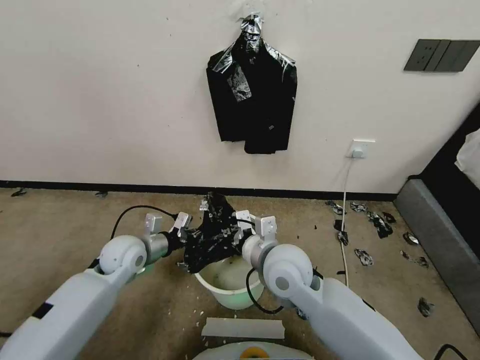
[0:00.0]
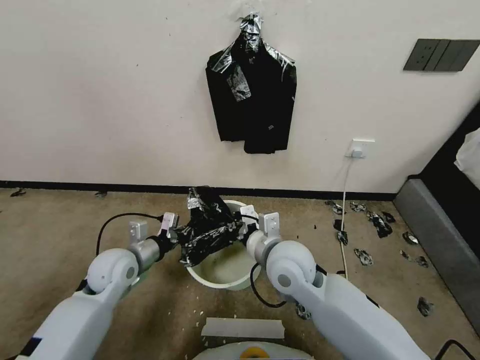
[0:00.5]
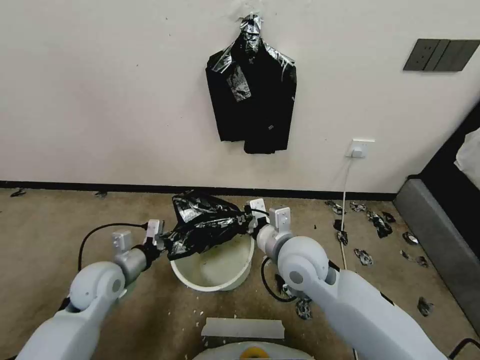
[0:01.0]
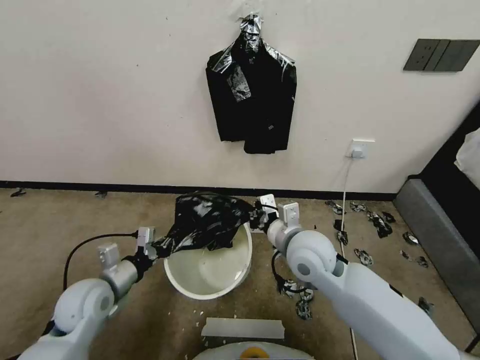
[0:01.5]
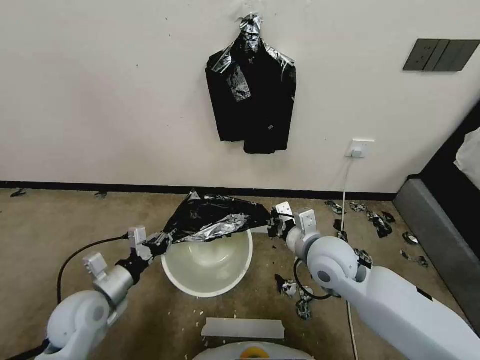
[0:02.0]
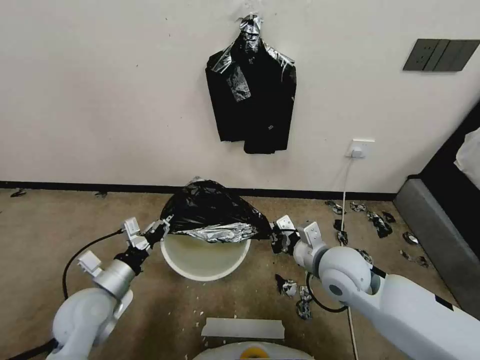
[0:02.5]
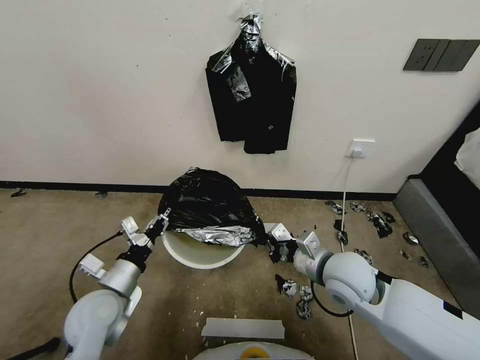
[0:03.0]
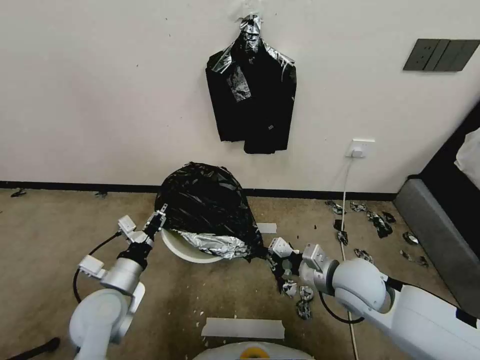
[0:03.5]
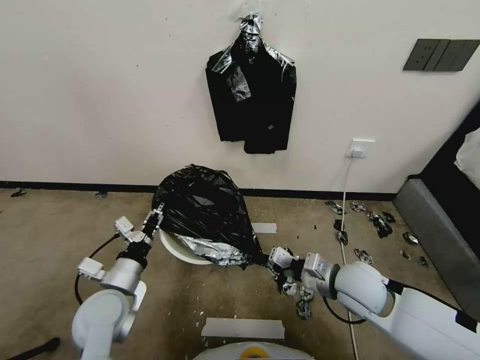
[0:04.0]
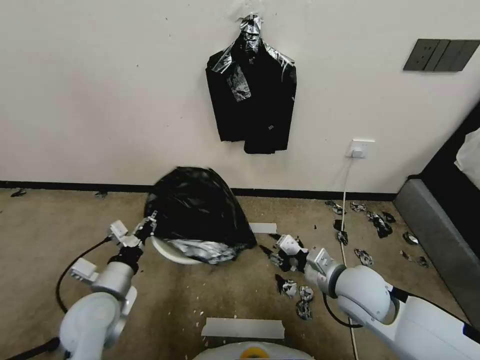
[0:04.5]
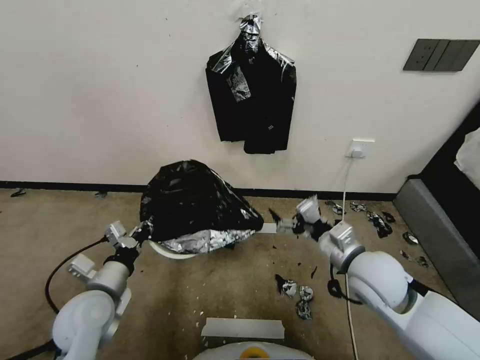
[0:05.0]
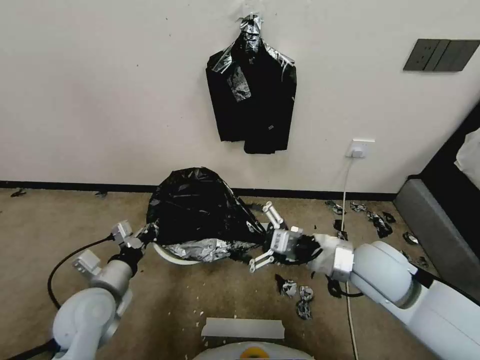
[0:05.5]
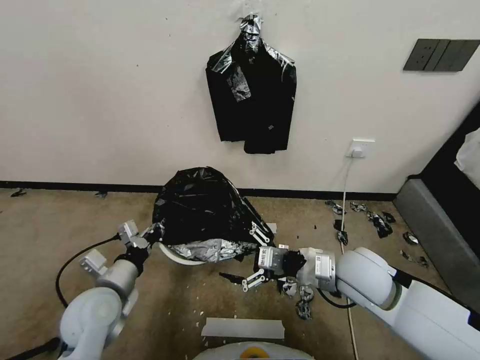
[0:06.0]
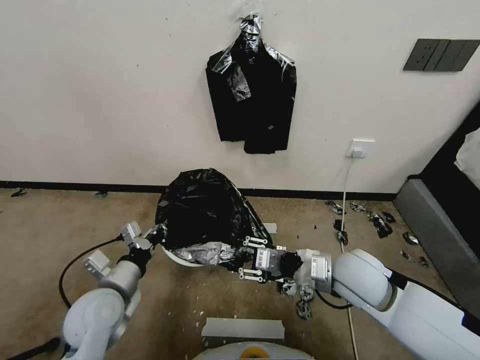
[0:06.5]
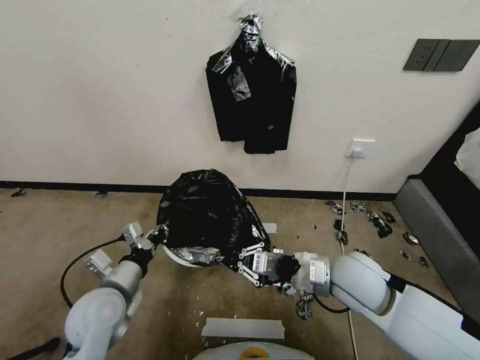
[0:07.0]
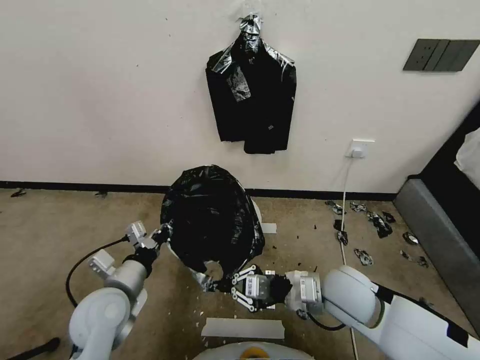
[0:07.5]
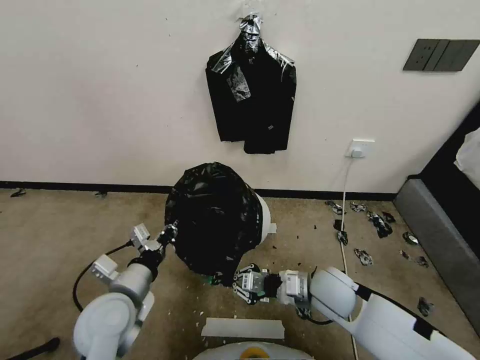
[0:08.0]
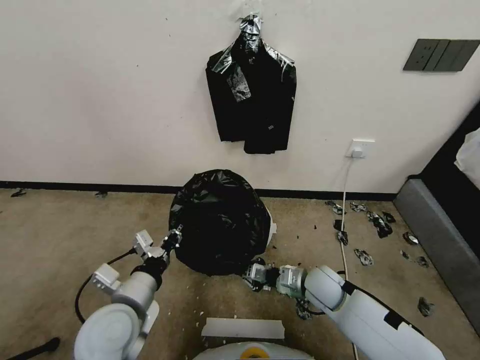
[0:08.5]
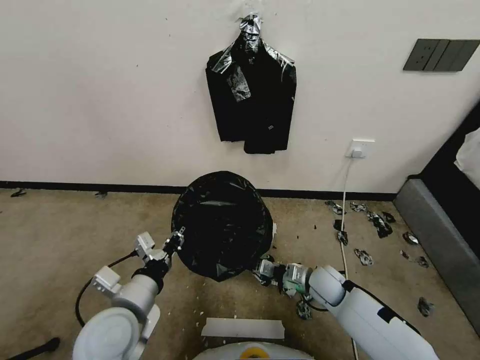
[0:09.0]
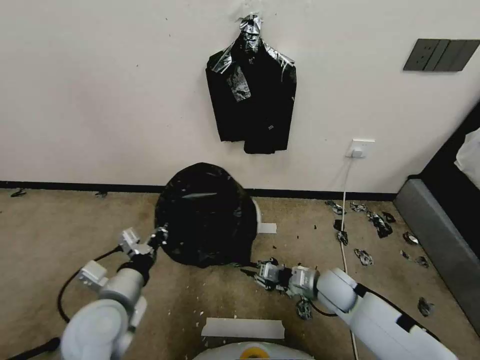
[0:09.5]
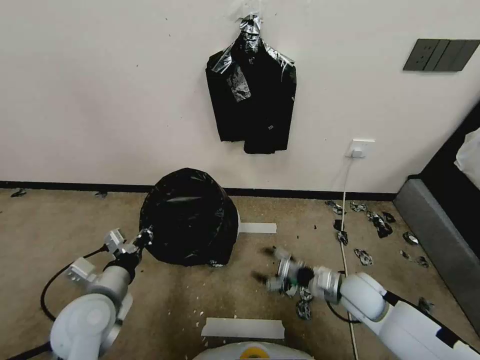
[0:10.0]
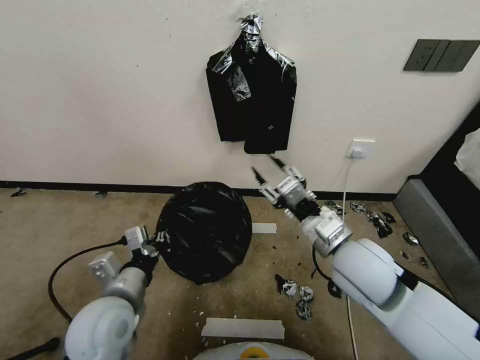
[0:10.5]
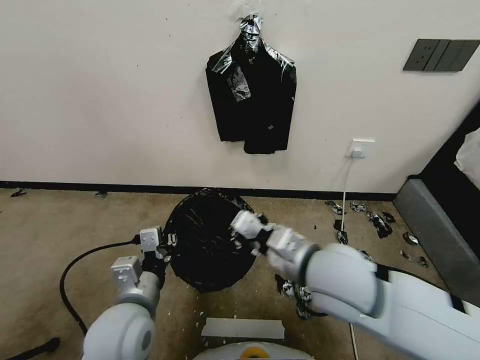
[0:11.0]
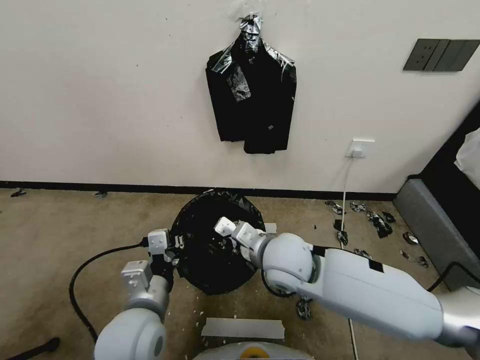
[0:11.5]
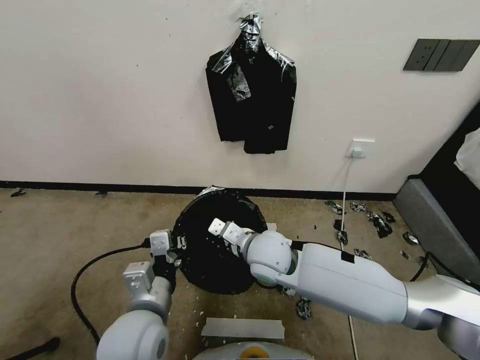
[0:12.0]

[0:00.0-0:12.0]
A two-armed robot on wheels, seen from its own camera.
Task of the whole recording: Place a trash bag onto the trash bin.
0:00.0 to 0:02.0: The right gripper heads to the right, covering some 10 cm. The left gripper heads backward, covering approximately 15 cm.
0:02.0 to 0:04.0: Both grippers move to the right, about 5 cm.
0:04.0 to 0:06.0: The right gripper shifts some 5 cm upward, and opens.
0:06.0 to 0:08.0: The right gripper heads downward, covering roughly 10 cm, and closes its fingers.
0:08.0 to 0:10.0: The right gripper moves to the right, about 10 cm, and opens.
0:10.0 to 0:12.0: The left gripper goes about 10 cm to the right; the right gripper shifts some 25 cm to the left and upward, and closes up.

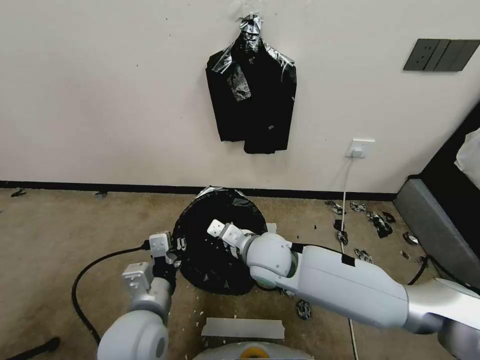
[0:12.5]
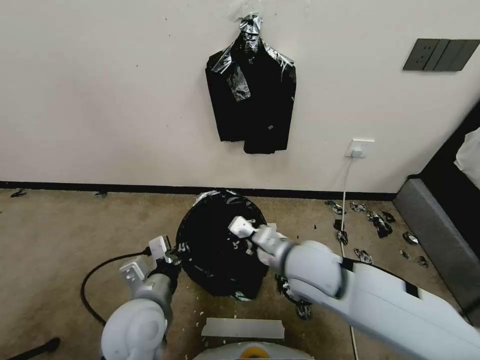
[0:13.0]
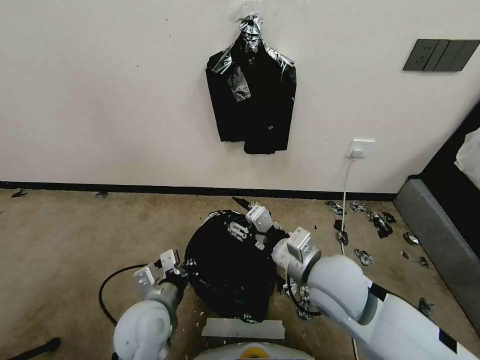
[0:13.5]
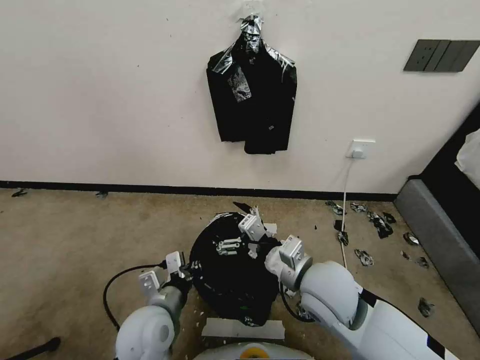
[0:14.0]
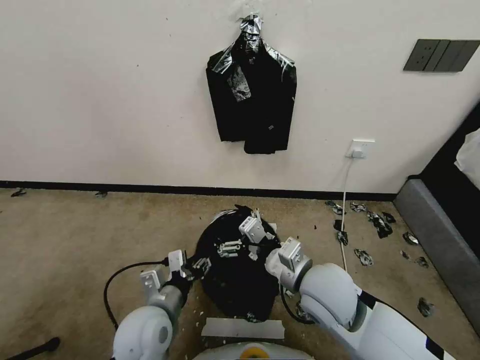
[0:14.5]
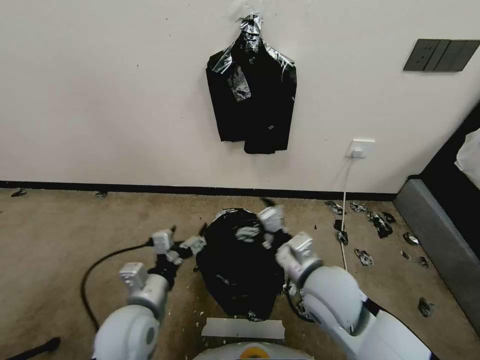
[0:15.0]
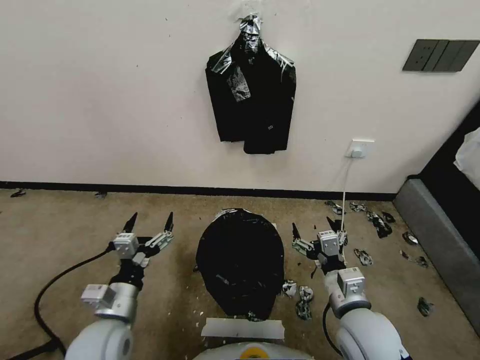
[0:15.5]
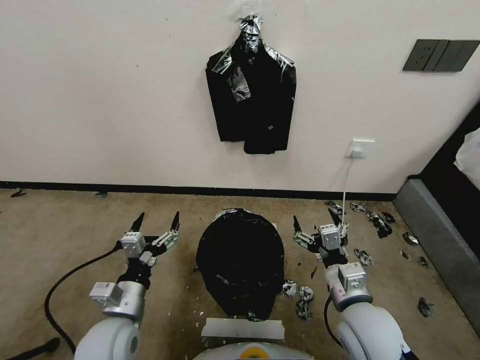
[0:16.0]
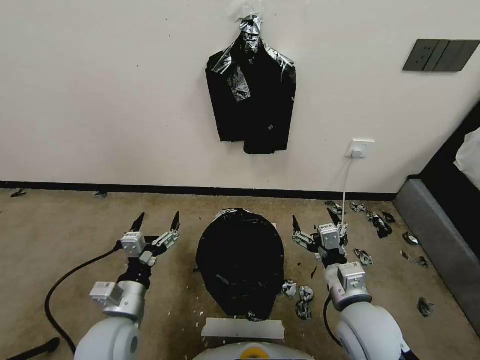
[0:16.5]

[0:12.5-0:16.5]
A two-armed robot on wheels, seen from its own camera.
Task of the whole recording: Place a trash bag onto the trash bin.
0:12.5 to 0:14.5: The left gripper goes some 5 cm downward, and opens up, while the right gripper travels to the right and backward by roughly 10 cm, and opens up.
0:14.5 to 0:16.5: The right gripper shifts about 10 cm to the right and backward. The left gripper shifts about 5 cm to the left, and opens up.
